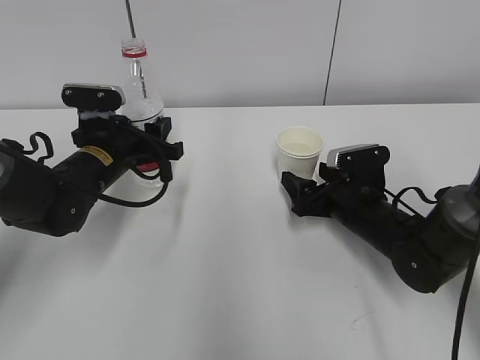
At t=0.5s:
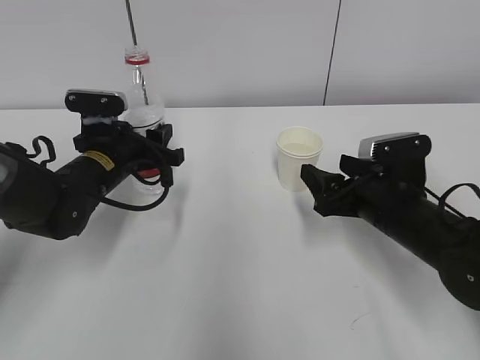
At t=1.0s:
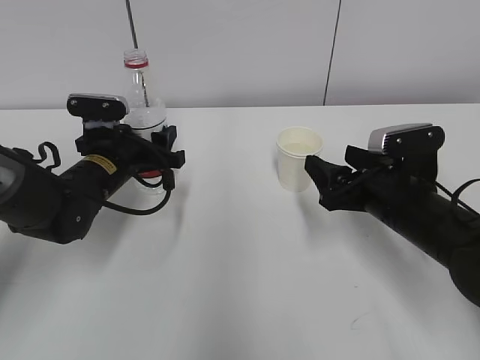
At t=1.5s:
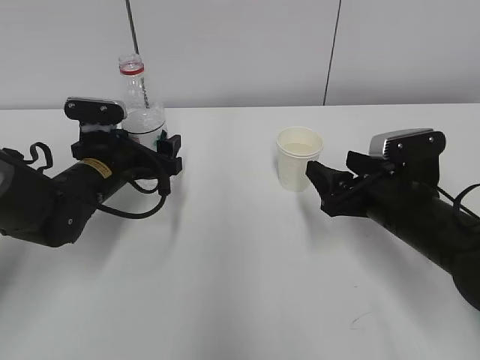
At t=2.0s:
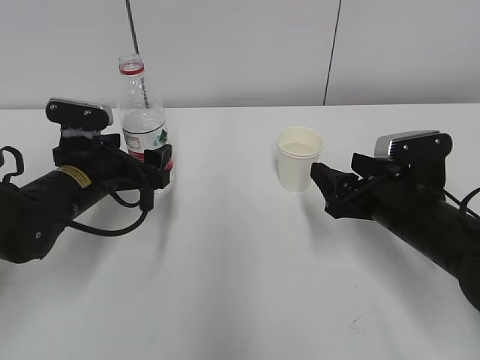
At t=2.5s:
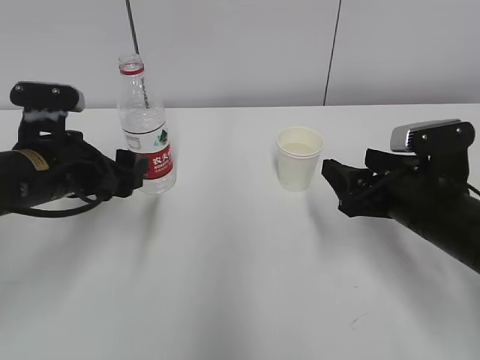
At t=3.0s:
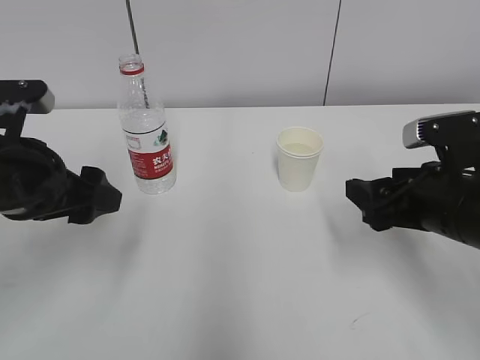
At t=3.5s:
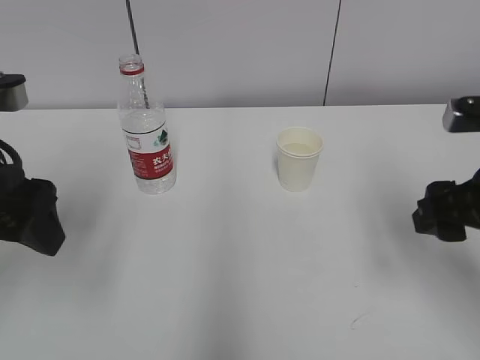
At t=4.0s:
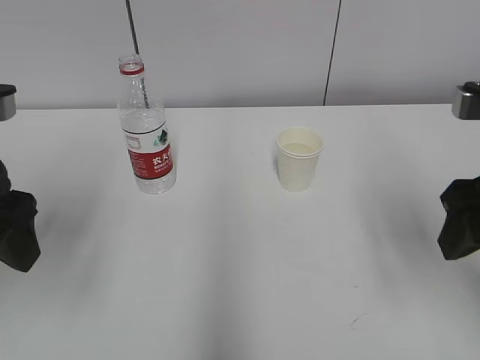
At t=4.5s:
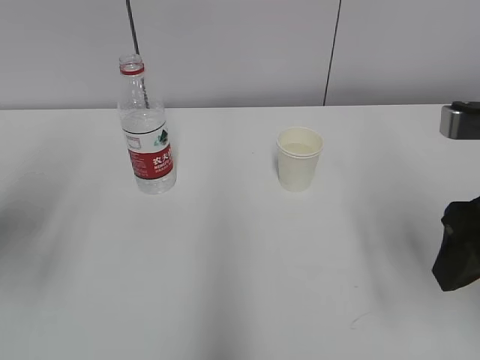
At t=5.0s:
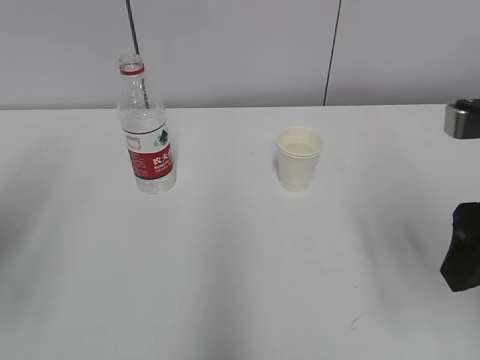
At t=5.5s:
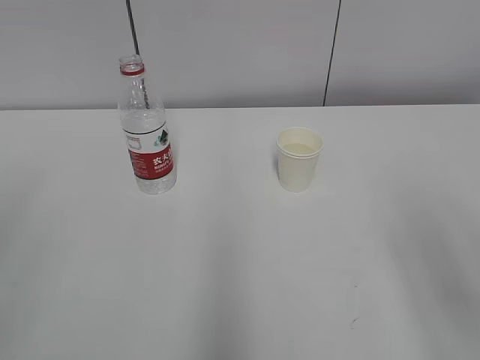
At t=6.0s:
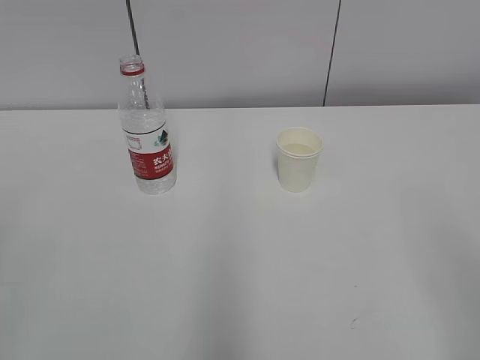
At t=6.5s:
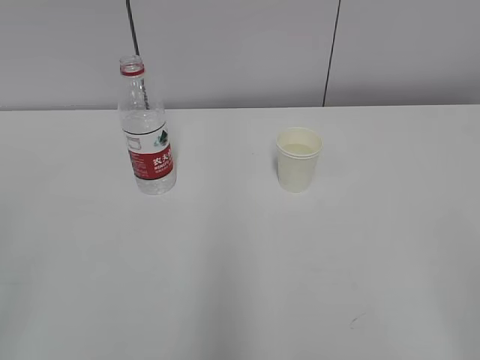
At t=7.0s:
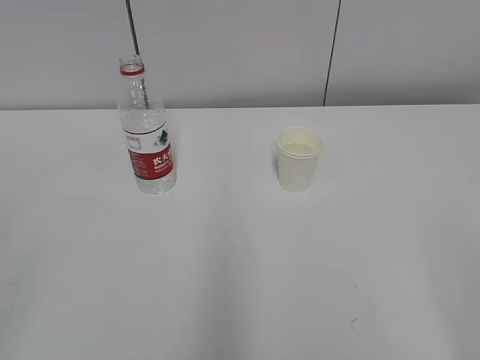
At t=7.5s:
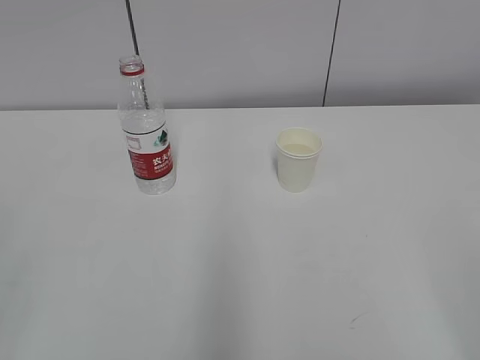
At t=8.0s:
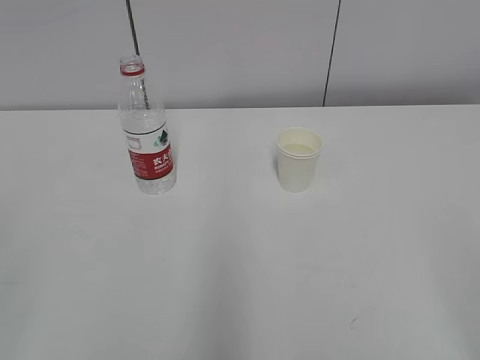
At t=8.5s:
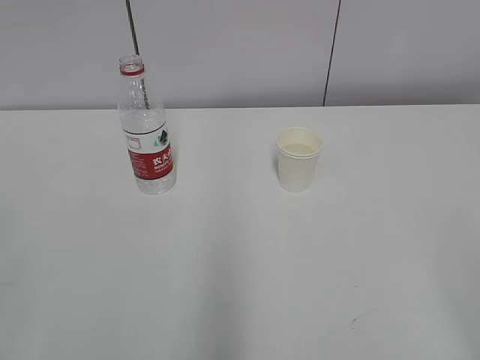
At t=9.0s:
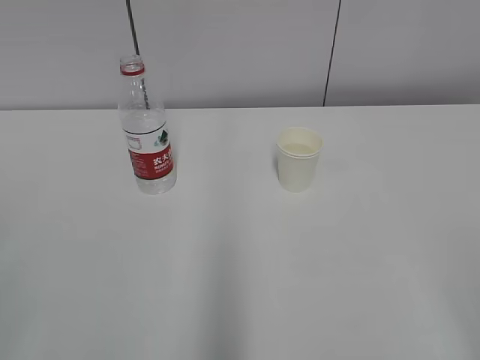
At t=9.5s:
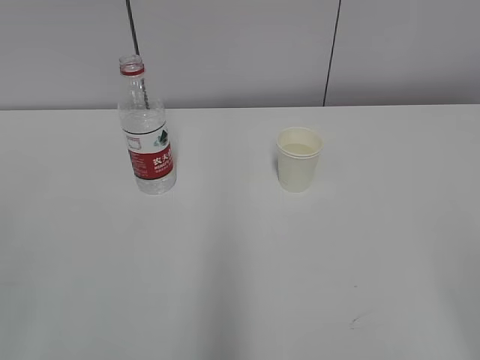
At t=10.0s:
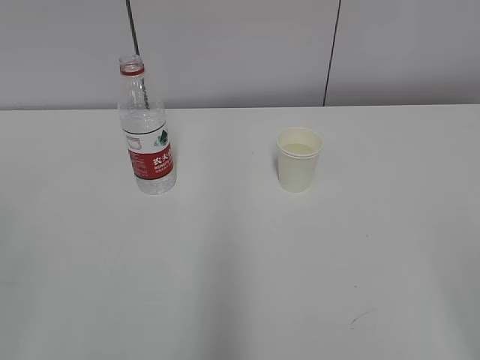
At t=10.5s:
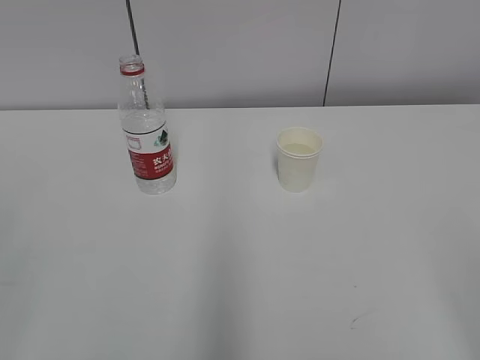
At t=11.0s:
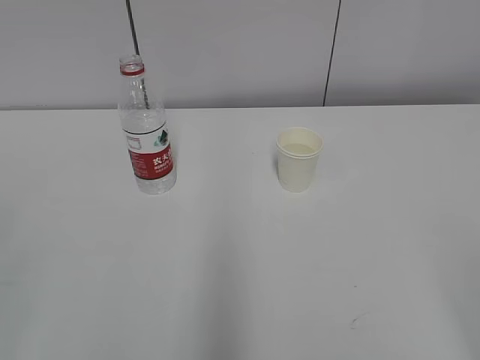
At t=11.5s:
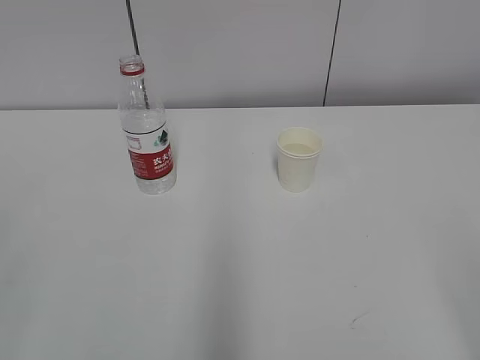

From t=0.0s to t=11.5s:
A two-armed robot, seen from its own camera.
From t=0.0s to t=2.0s: The right gripper travels backward and upward by roughly 10 cm. Meanwhile the left gripper opens.
From t=2.0s to t=4.0s: Both grippers travel together upward and backward, approximately 20 cm.
From t=4.0s to t=6.0s: The two grippers go about 20 cm backward.
From t=7.5s to t=11.5s: Both grippers stay about where they are.

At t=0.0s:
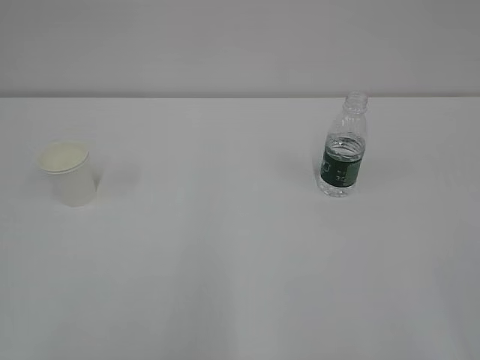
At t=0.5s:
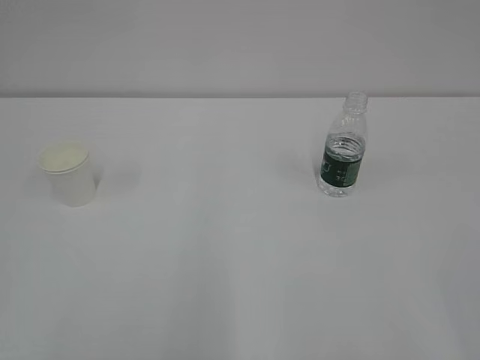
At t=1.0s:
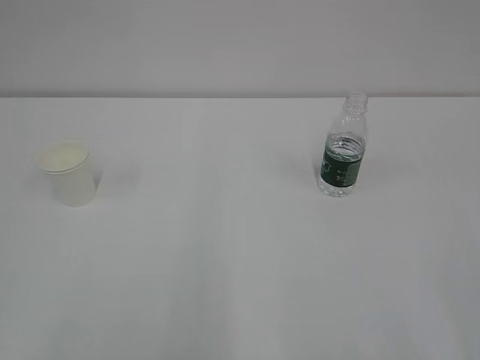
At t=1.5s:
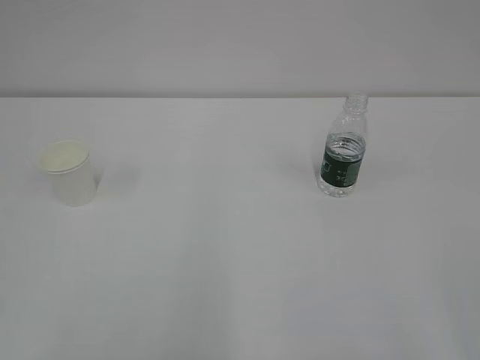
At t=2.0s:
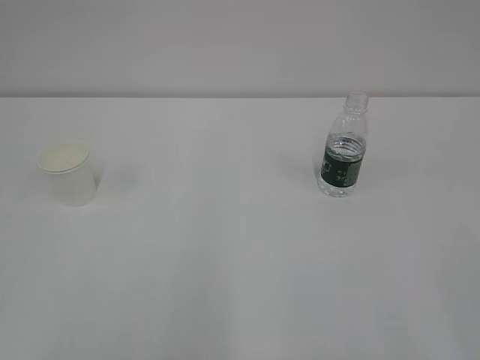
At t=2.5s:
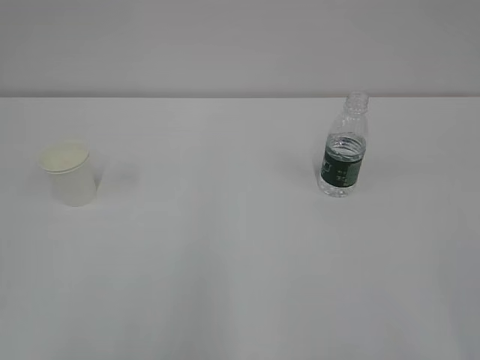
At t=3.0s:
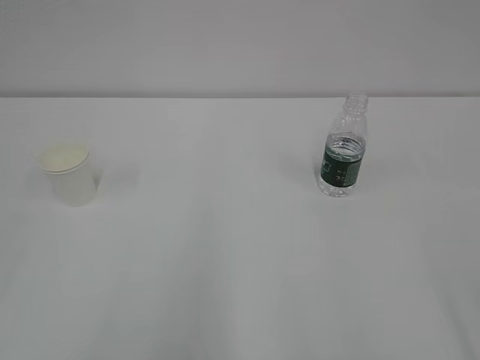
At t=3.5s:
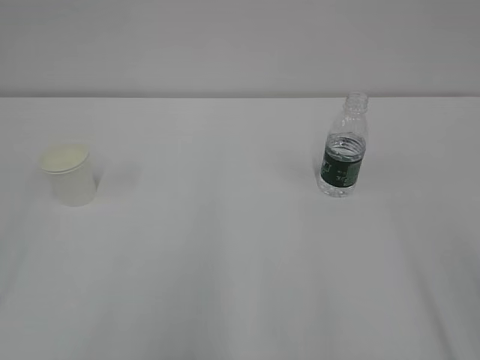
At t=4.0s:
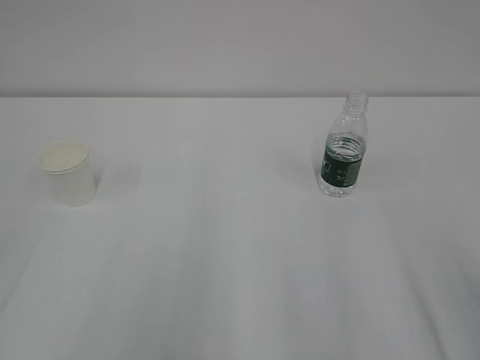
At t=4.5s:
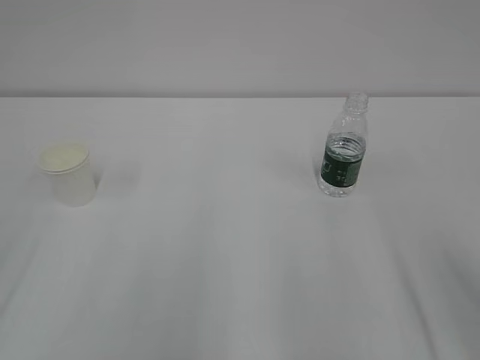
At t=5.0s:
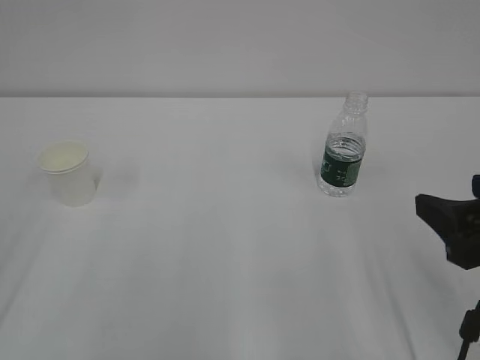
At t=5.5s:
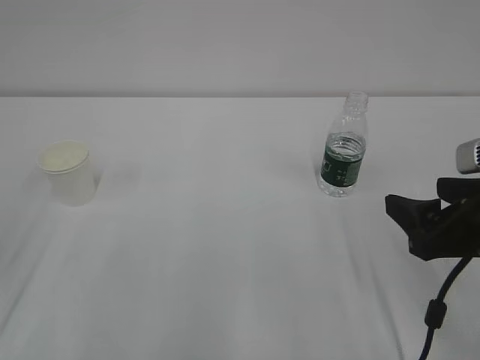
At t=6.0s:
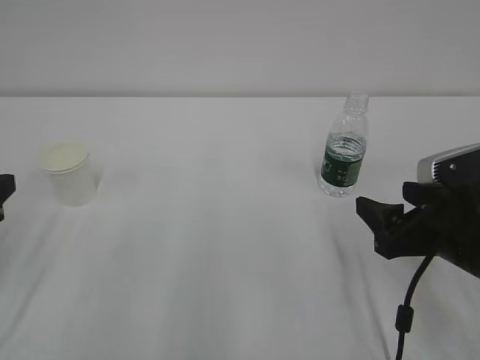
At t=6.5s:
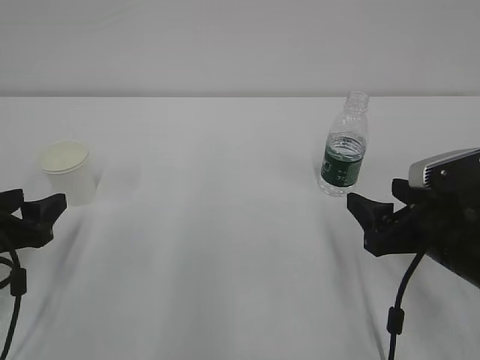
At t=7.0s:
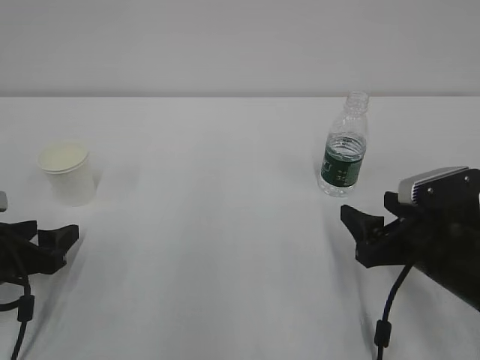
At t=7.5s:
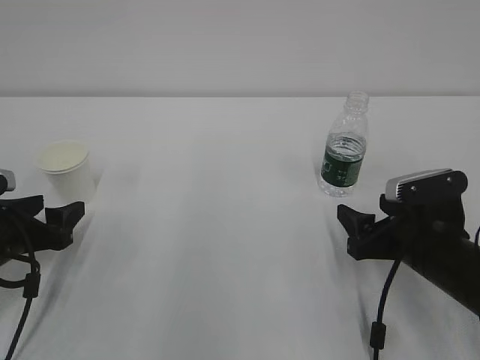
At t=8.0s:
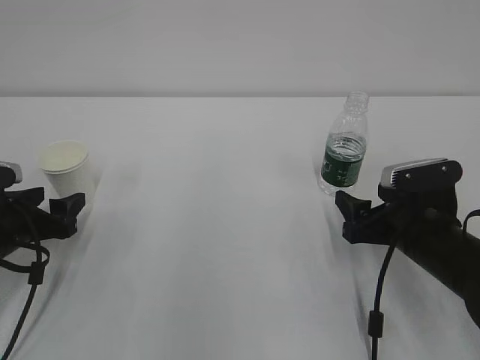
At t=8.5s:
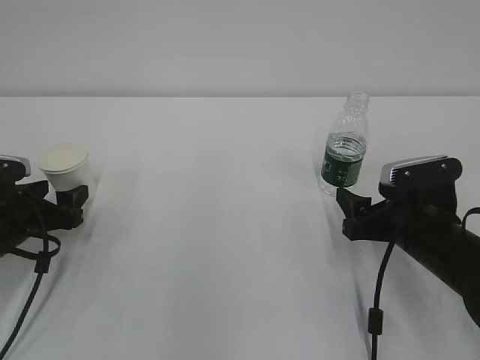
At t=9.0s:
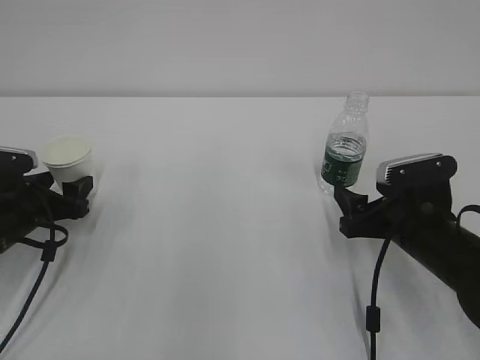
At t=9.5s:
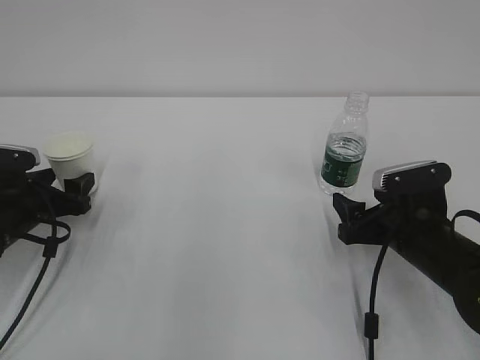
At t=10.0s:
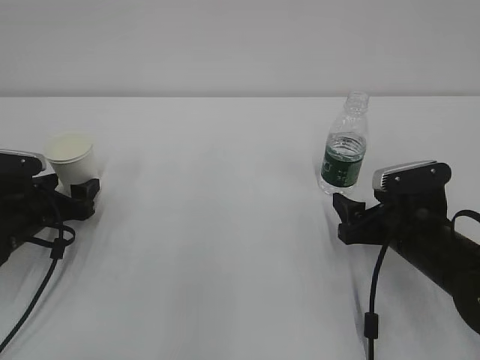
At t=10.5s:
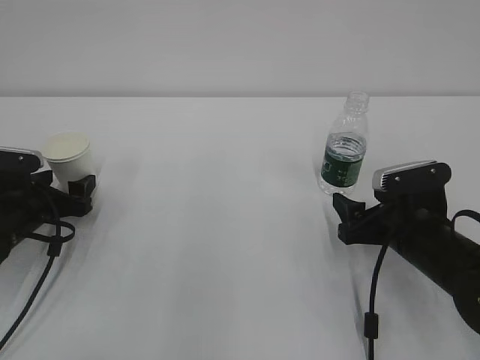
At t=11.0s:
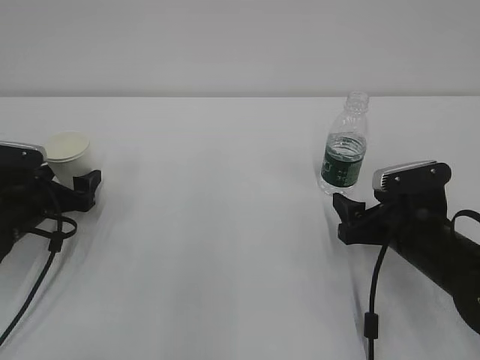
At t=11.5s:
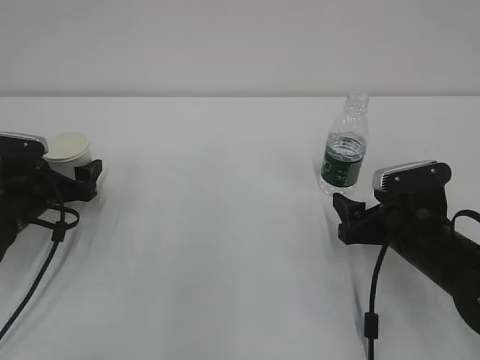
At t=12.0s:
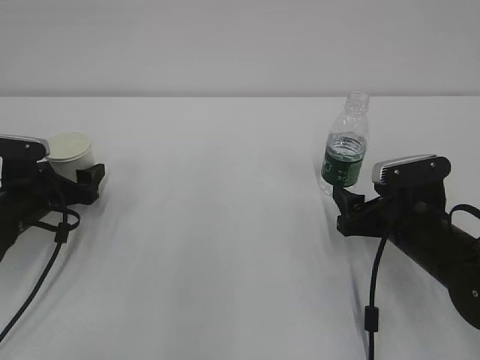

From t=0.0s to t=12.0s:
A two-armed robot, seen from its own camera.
From t=4.0s to t=6.0s: The right gripper shifts approximately 20 cm forward, downward and to the left.
From t=6.0s to t=8.0s: The left gripper moves downward and forward, roughly 15 cm. Meanwhile the right gripper moves downward and forward, about 10 cm.
From t=8.0s to t=10.0s: The left gripper travels forward by some 5 cm.
From t=10.0s to t=12.0s: The grippers stay close to where they were, moving slightly.

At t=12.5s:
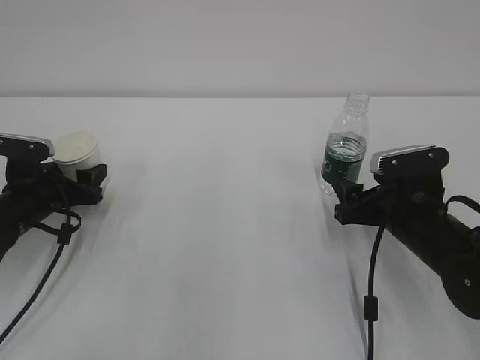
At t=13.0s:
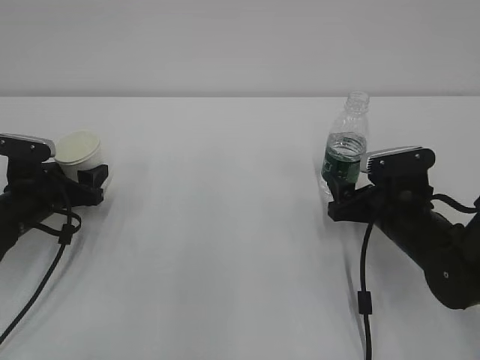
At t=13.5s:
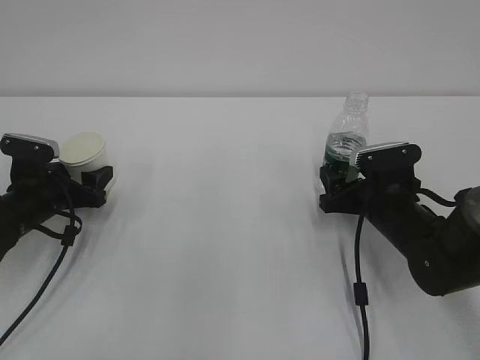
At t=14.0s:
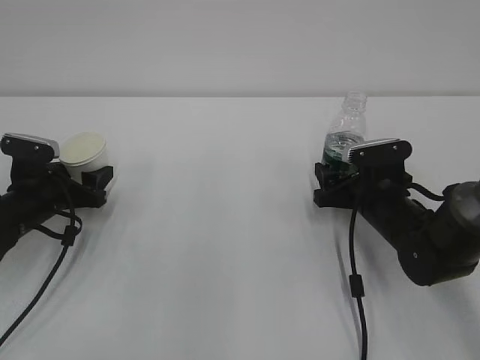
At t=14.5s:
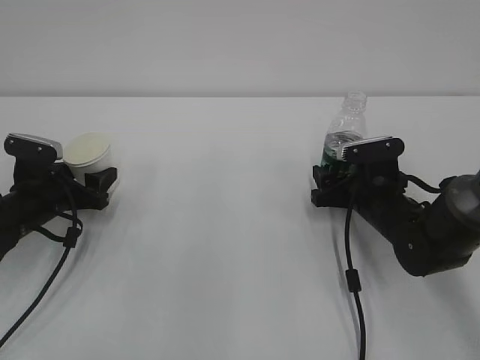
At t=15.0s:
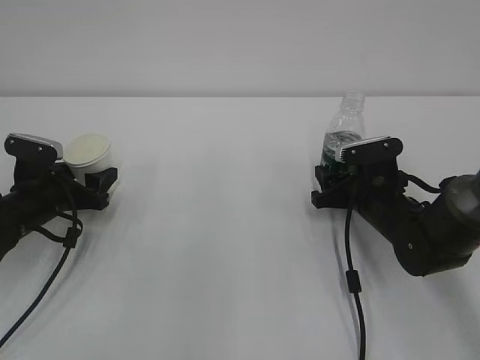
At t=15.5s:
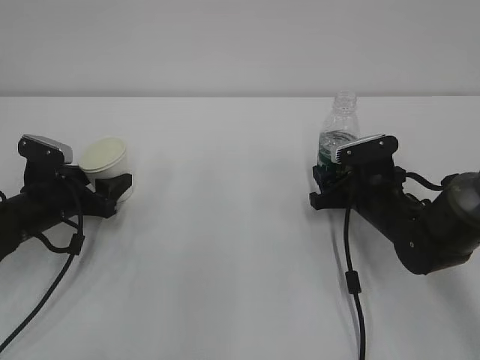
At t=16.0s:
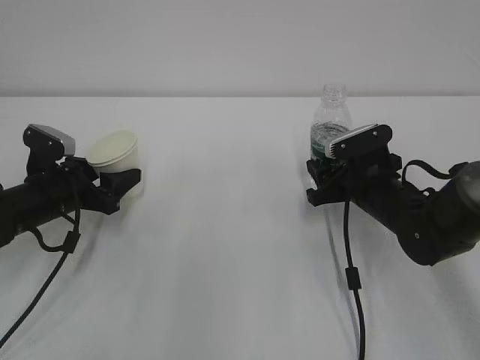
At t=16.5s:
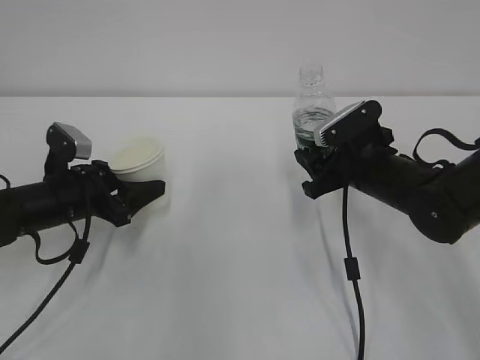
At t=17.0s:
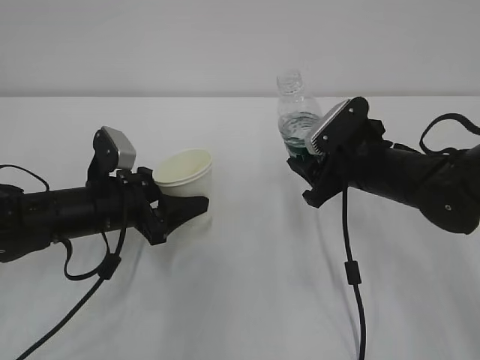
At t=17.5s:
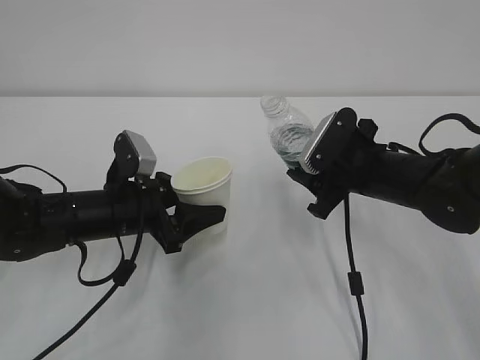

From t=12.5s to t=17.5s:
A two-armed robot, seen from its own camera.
From t=12.5s to t=15.0s: The right gripper is displaced forward by roughly 5 cm, and closes its fingers.
From t=15.0s to t=17.5s: The right gripper heads upward, covering some 5 cm, while the left gripper shifts some 15 cm to the right.
